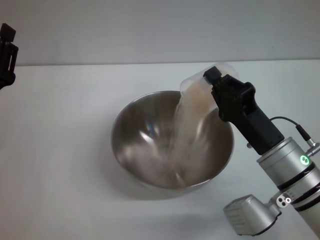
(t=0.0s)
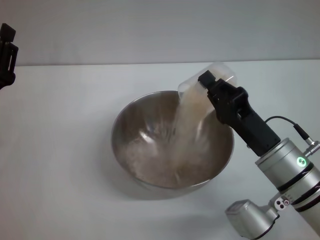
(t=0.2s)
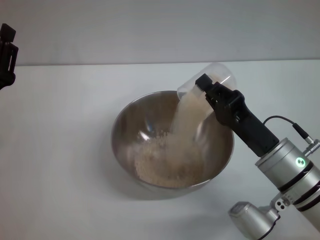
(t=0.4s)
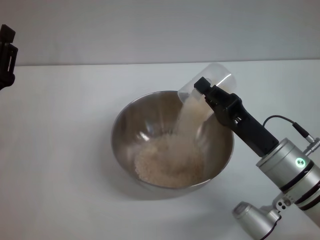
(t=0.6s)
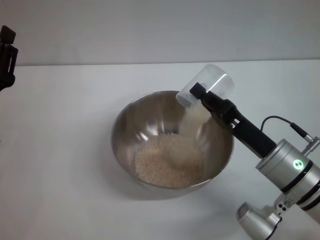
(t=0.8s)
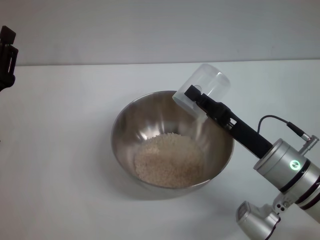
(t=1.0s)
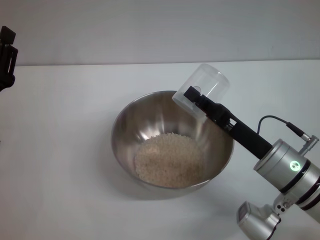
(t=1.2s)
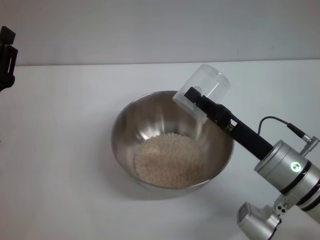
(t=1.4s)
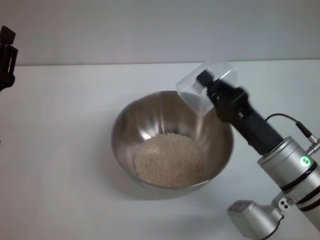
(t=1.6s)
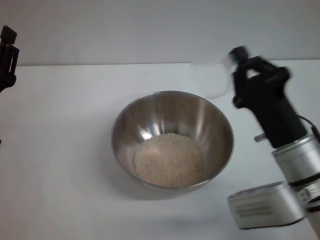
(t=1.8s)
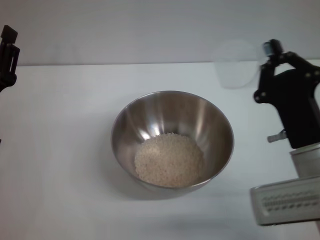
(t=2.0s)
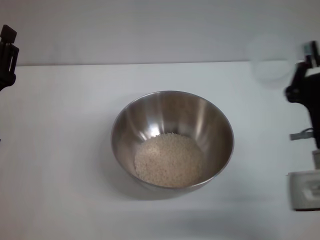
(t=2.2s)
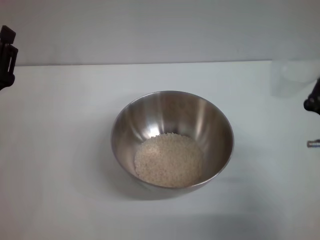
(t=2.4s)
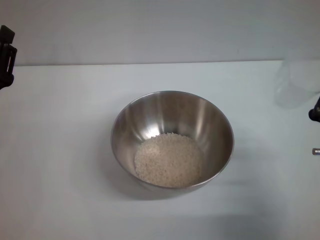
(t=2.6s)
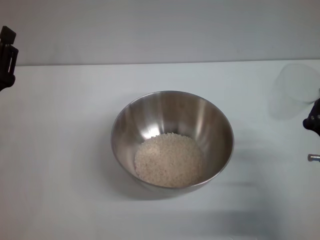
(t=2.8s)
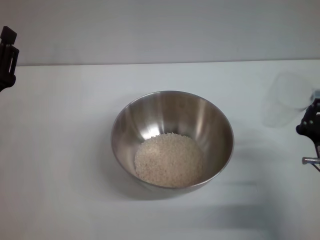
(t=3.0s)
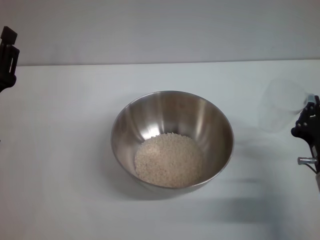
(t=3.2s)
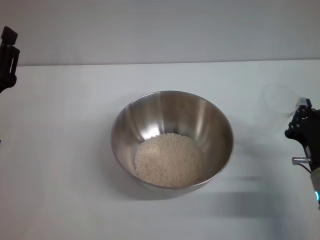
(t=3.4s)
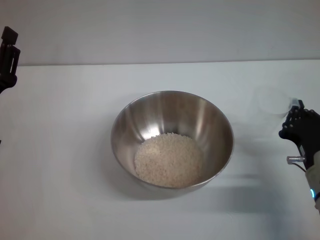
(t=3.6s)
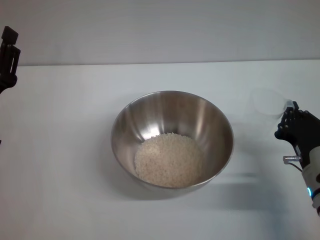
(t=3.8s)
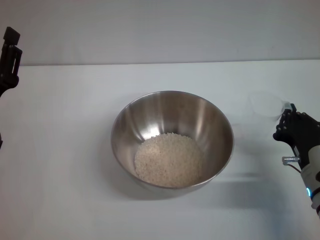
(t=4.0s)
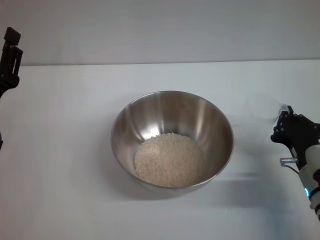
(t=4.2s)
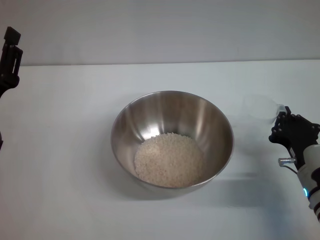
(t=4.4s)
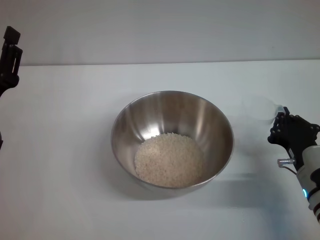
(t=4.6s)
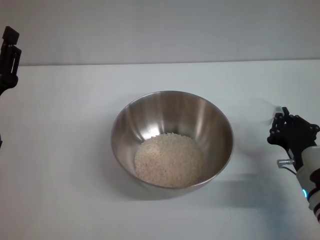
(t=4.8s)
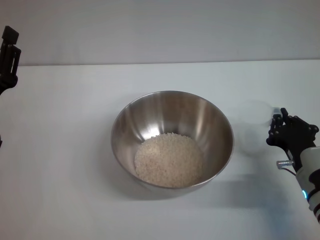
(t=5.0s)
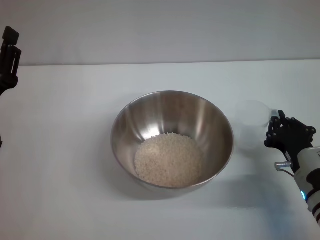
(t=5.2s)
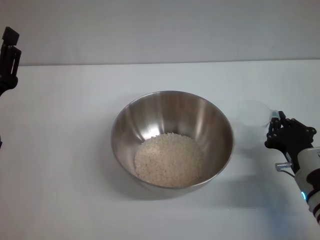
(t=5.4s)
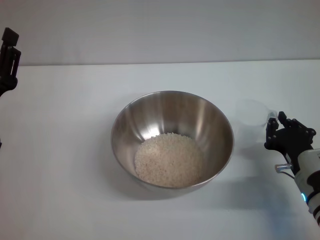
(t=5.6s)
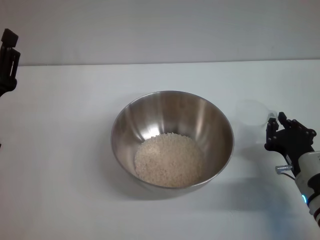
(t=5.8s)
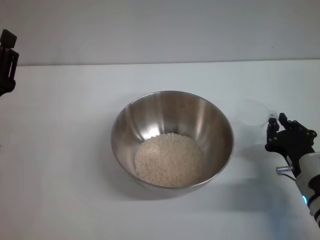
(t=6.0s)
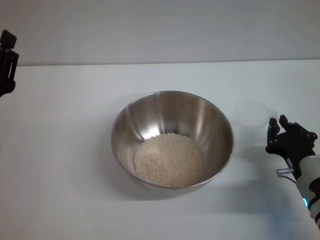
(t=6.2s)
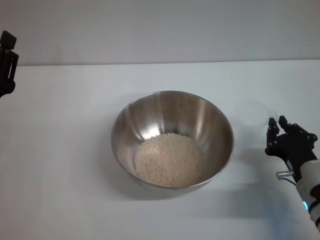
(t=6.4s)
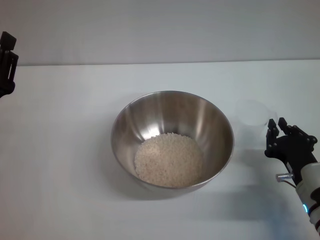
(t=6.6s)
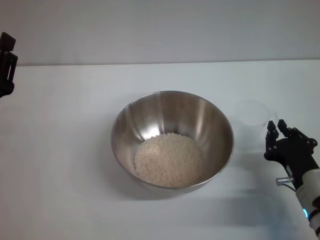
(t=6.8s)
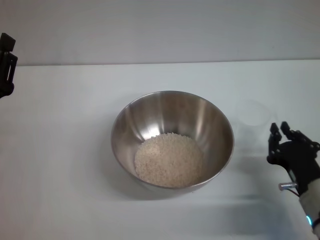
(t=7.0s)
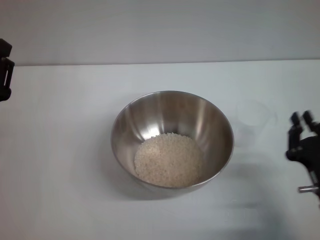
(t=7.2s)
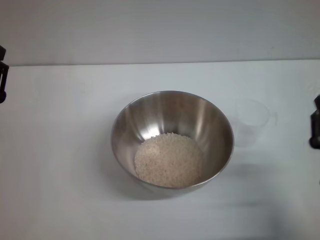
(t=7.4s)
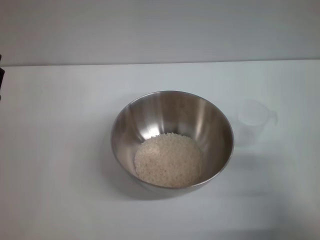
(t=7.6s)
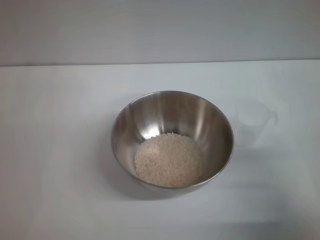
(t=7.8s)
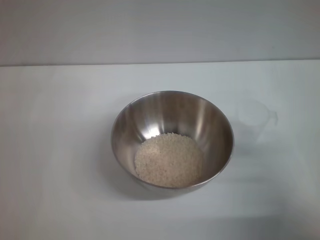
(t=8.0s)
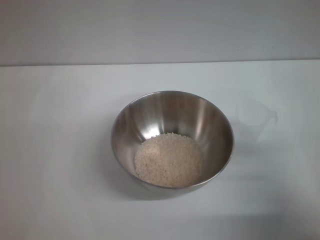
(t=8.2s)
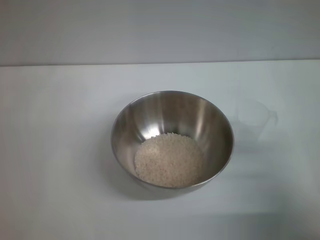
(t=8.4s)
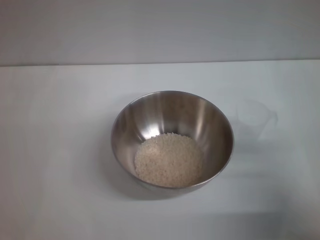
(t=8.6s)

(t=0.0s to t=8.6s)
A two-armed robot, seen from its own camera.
Task of the whole recording: Place the bowl in the middle of the table with one hand and pour the rice from the grain cup into it with the other hand.
Step, t=0.0s - t=1.8s: Pour the rice from the cup into the bowl with the right gripper.
Step, t=2.0s - t=7.0s: Place the cup on the table with the right gripper.
t=1.4s - t=2.8s: The right gripper shifts some 5 cm to the right.
t=2.8s - t=4.4s: The right gripper shifts by some 5 cm.
t=4.4s - t=5.8s: Both grippers stay put.
t=5.8s - t=7.2s: The right gripper heads backward, covering approximately 5 cm.
t=7.2s - t=8.6s: The right gripper moves roughly 5 cm, and opens up. The left gripper opens its fingers.
